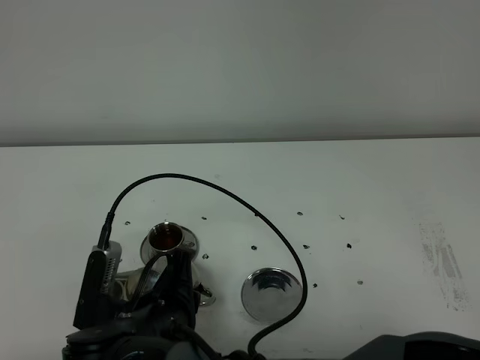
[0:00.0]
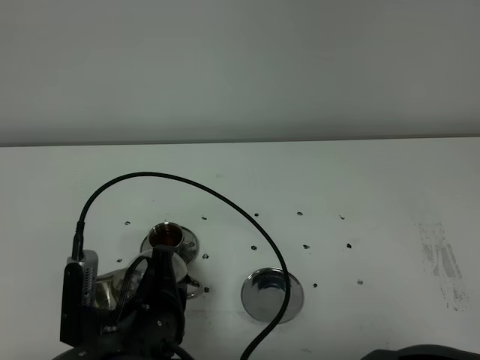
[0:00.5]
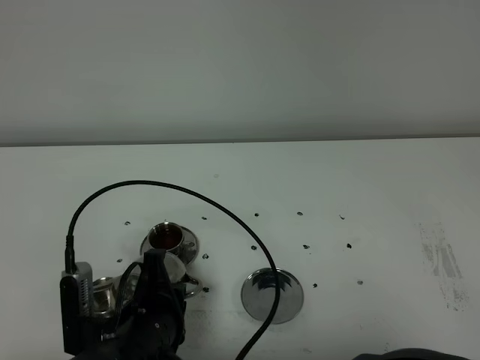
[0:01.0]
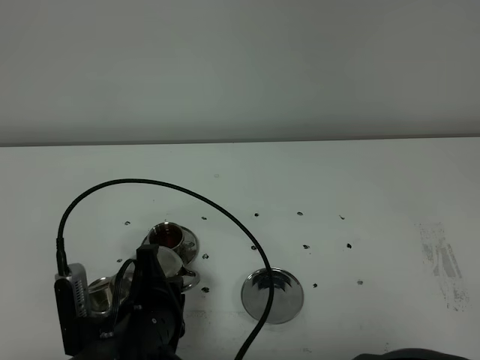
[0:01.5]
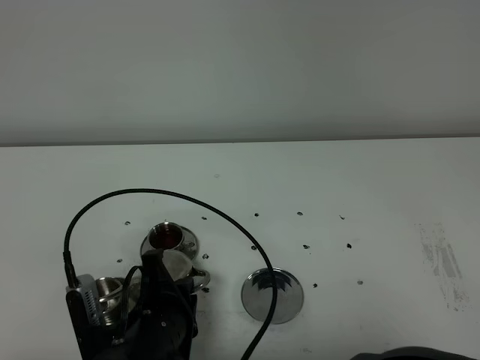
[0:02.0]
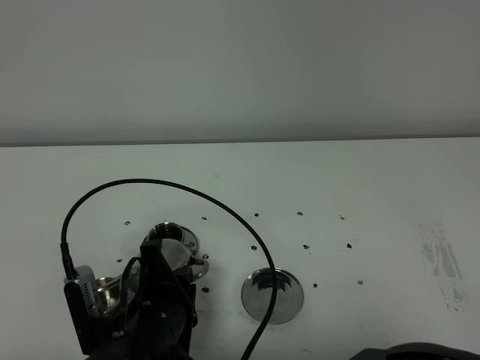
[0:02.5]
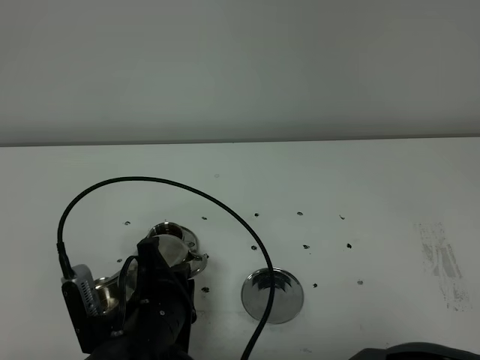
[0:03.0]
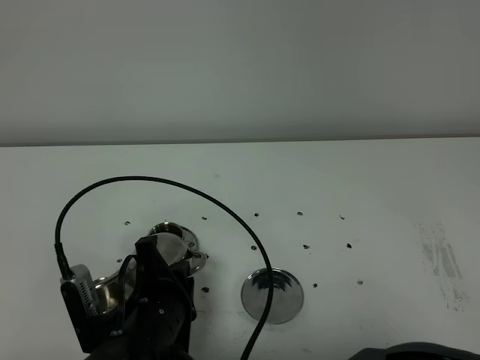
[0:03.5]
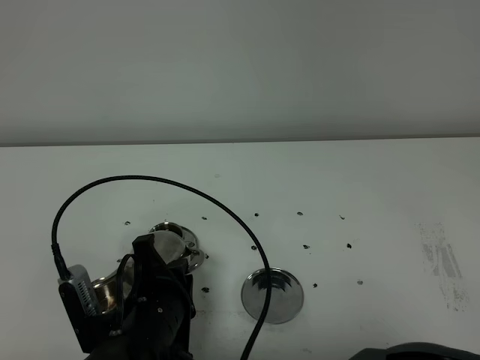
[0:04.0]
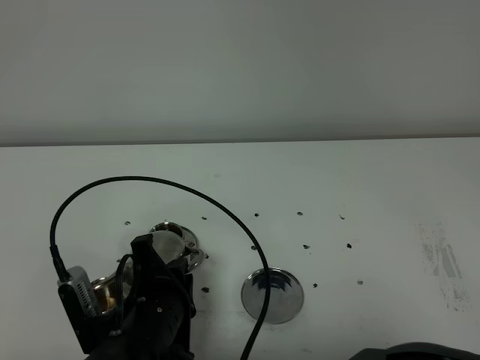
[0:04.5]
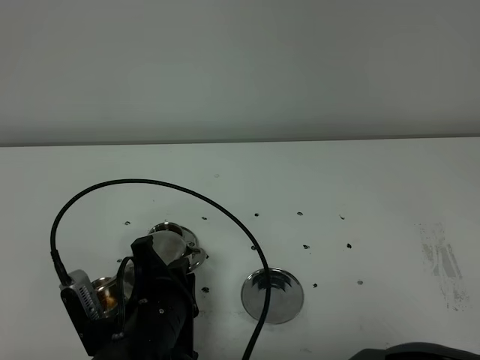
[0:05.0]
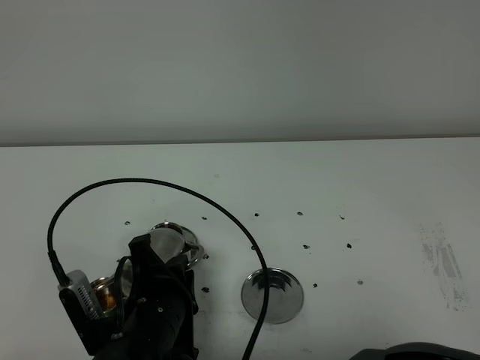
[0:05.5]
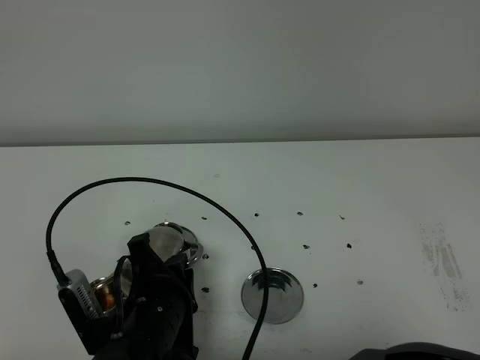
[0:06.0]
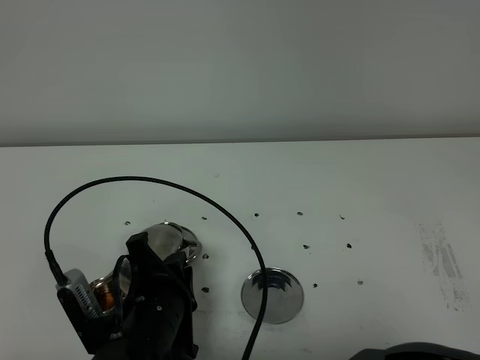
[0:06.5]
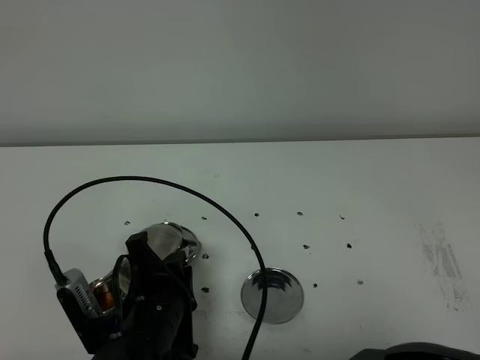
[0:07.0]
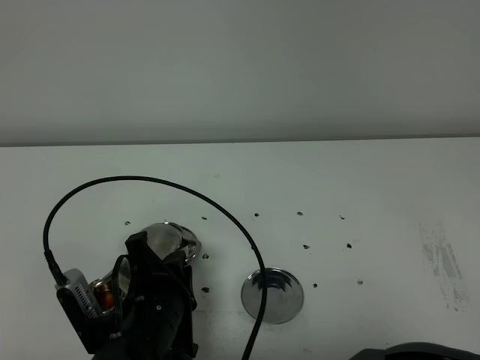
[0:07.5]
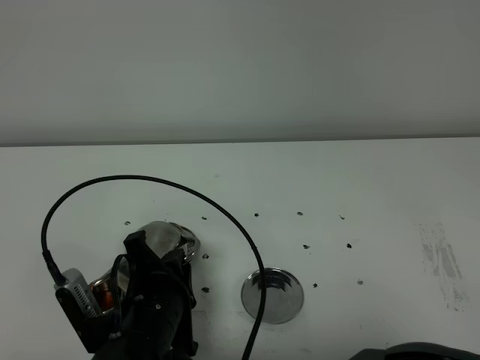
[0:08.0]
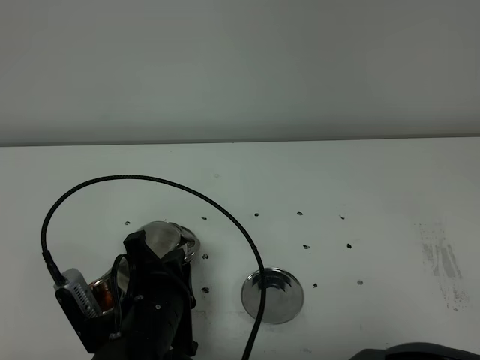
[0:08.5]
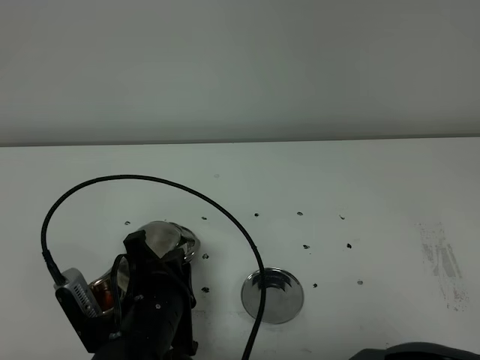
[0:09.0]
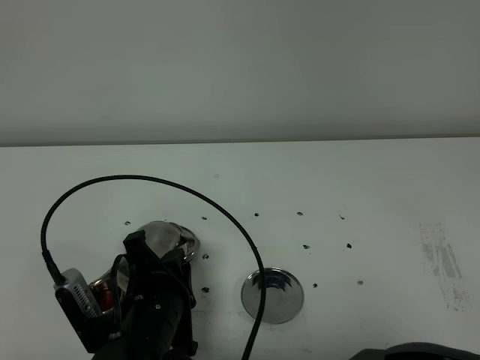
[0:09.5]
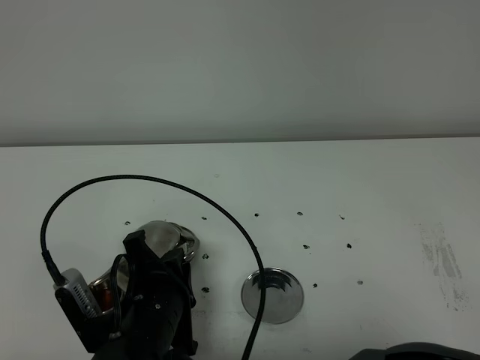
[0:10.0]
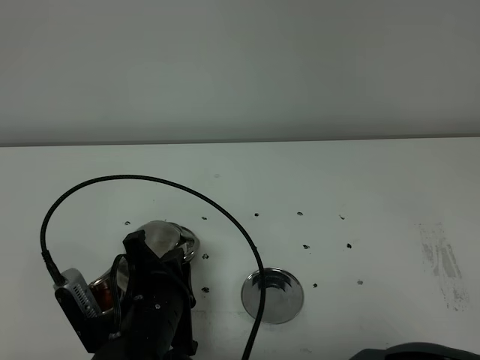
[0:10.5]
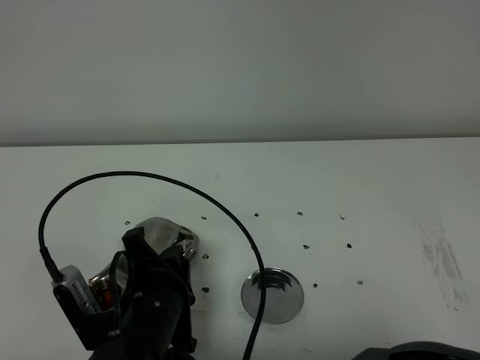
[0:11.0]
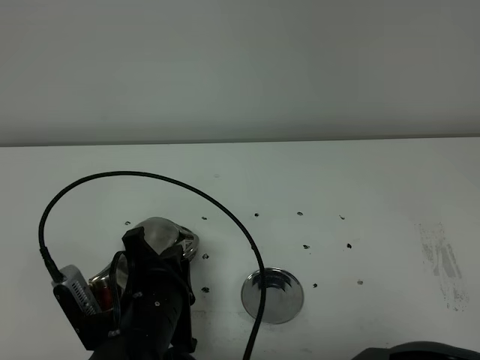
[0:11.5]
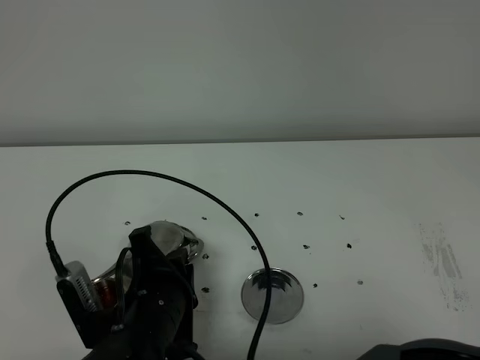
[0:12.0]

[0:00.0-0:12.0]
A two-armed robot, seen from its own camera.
Task of the whole recording: grasp the stainless steel teapot and pour the tea into the two stainless steel teacups one by one, put the stainless steel teapot back in its original place.
Step, 0:00.0 to 0:12.0: Pour tea into the teacup with the right gripper.
0:02.0 to 0:06.0: The grippers make only small movements.
0:06.0 to 0:12.0: Both grippers stay about where they are.

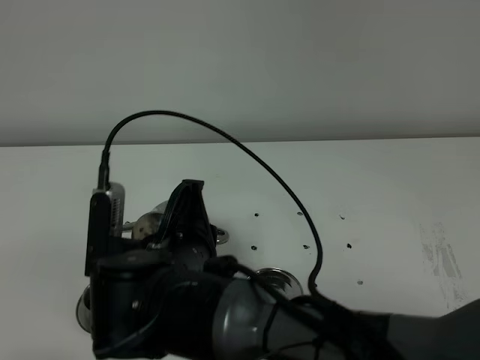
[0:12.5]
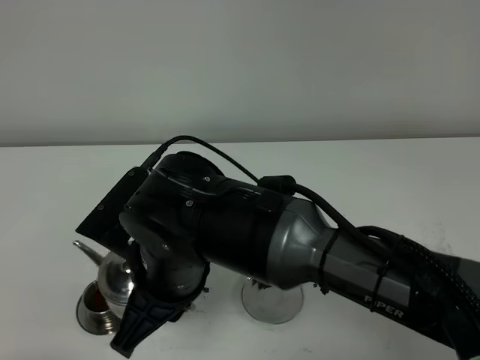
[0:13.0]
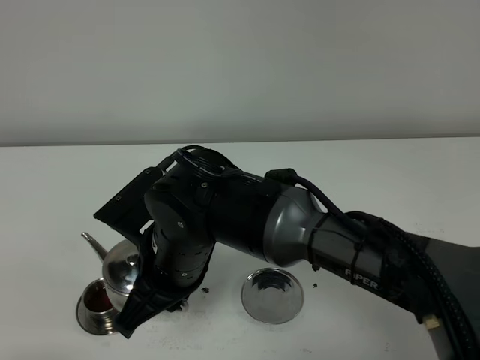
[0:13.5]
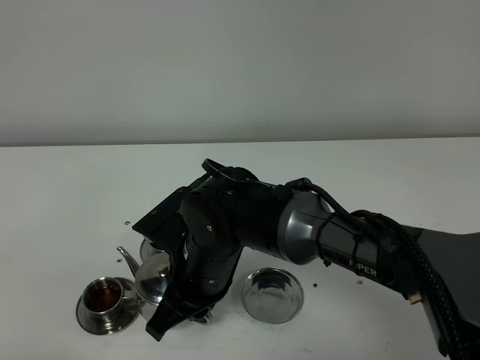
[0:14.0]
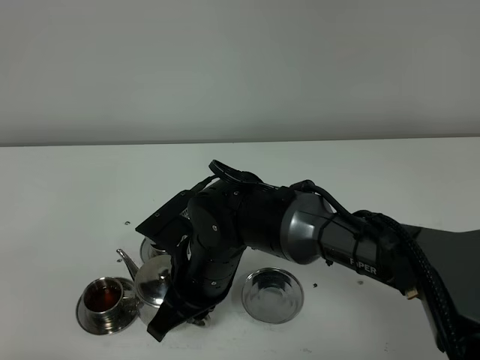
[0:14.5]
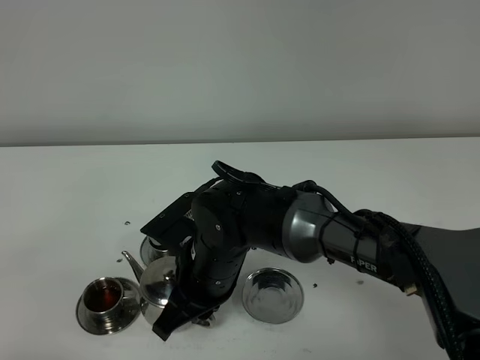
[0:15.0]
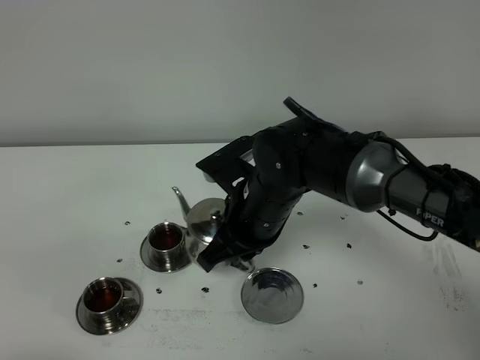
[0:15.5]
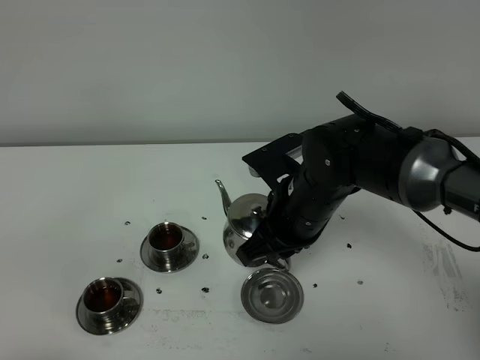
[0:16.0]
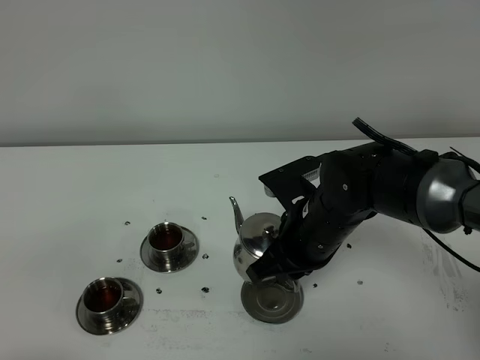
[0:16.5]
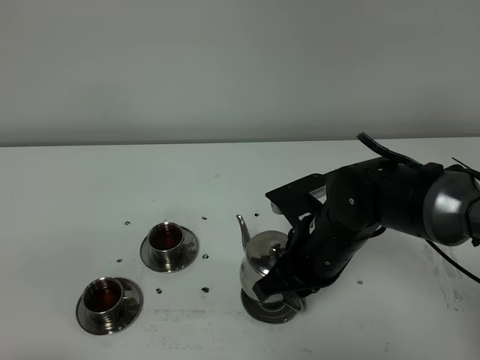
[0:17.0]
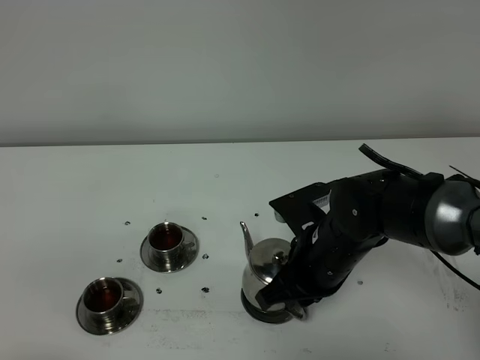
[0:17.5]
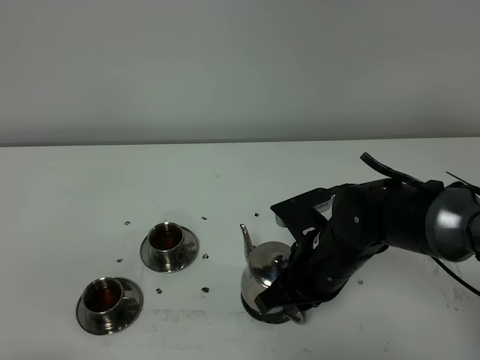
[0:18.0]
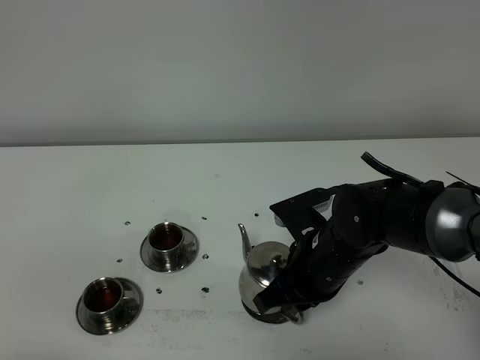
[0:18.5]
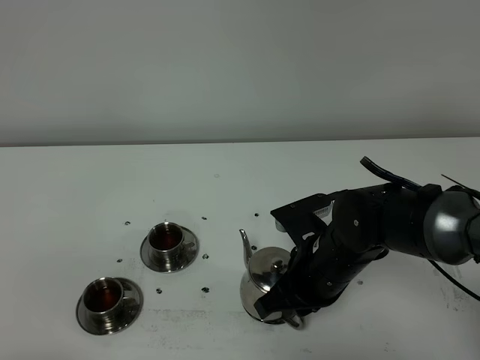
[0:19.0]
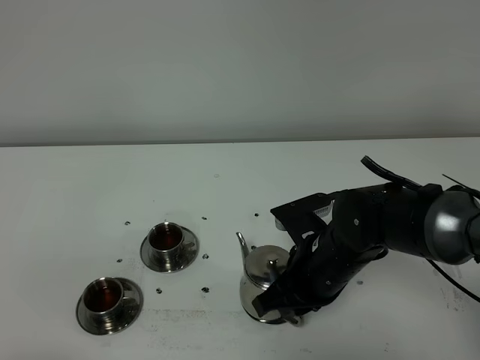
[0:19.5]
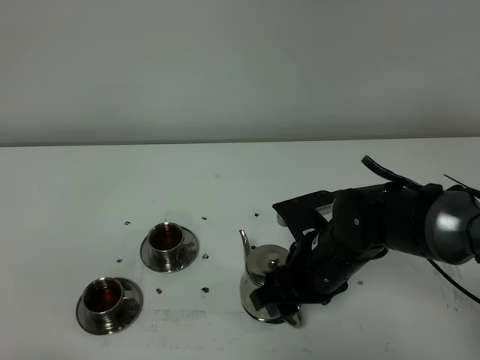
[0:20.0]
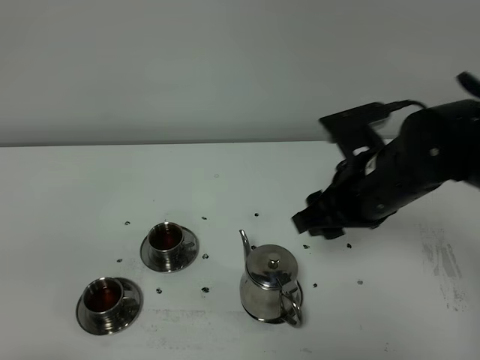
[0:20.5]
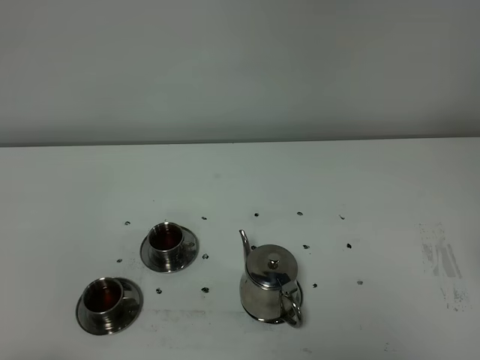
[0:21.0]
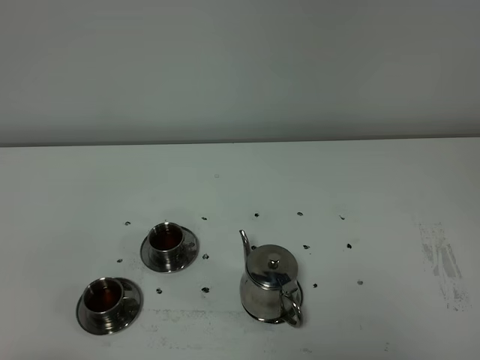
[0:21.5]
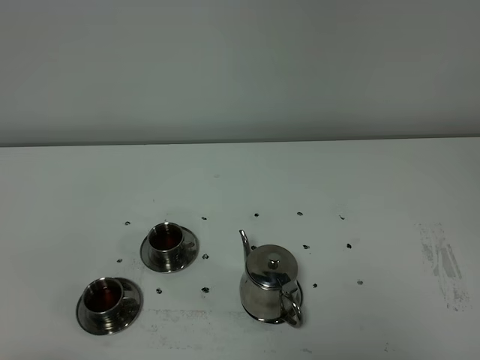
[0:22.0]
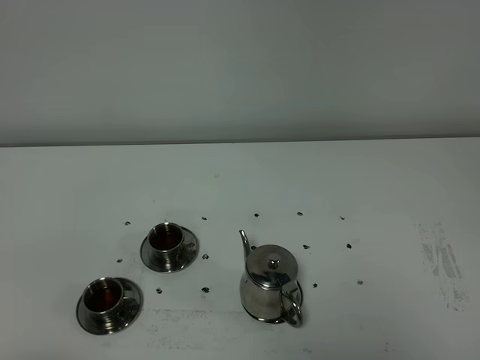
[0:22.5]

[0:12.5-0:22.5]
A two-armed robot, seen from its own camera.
Task of the whole recording: grasp the stainless steel teapot and pour the tea into the two stainless steel teacups one by one, put the stainless steel teapot back in its original place.
0:12.5 to 0:14.5: The right gripper goes some 10 cm downward and forward.
0:14.5 to 0:16.5: The right gripper travels to the right by roughly 10 cm.
0:16.5 to 0:18.5: The grippers move only a little.
0:18.5 to 0:20.5: The right gripper shifts roughly 15 cm upward and to the right, and opens up.
0:20.5 to 0:22.5: The right gripper goes some 35 cm backward and to the right.

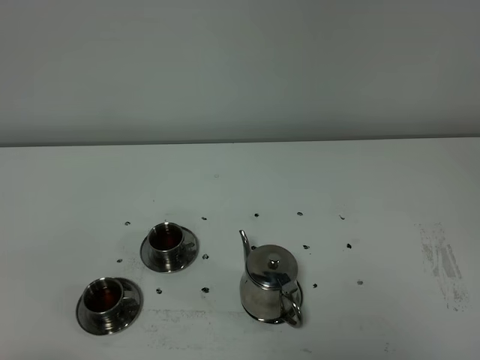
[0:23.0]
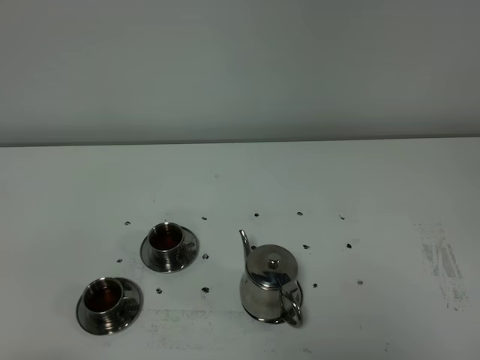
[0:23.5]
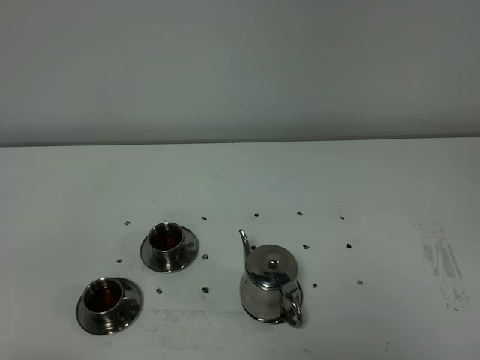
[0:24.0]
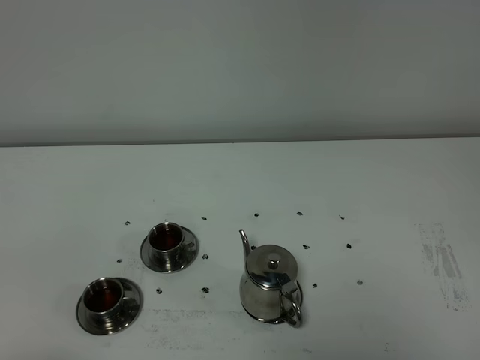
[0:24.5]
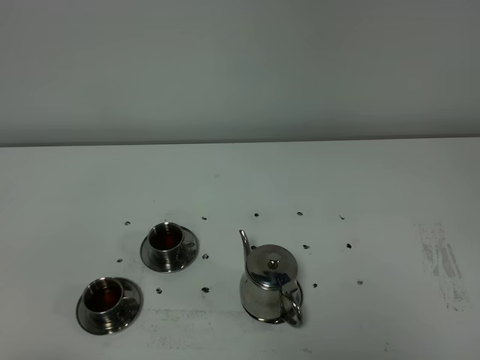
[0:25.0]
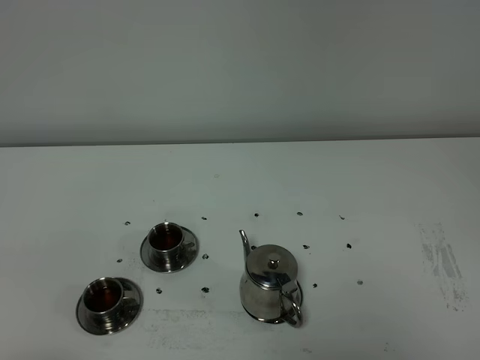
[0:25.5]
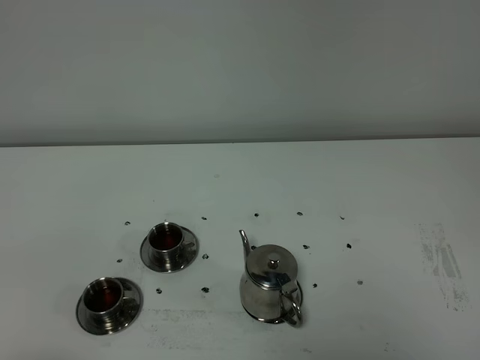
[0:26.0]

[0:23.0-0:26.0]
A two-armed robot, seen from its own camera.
Task of the whole recording: grasp the stainless steel teapot and pour the tea into the two stainless steel teacups one by one, put the stainless steel teapot back in its original place.
0:24.5 to 0:26.0: Neither gripper changes place.
